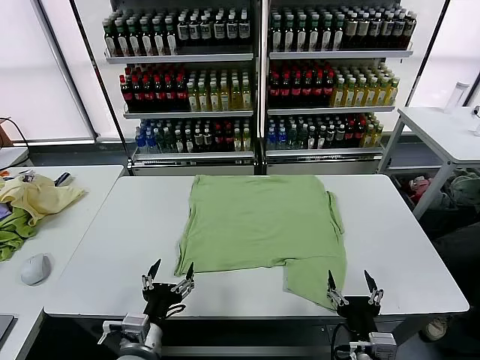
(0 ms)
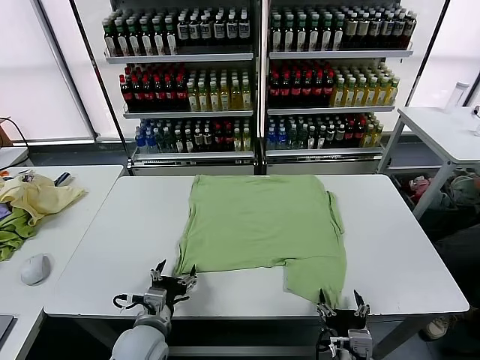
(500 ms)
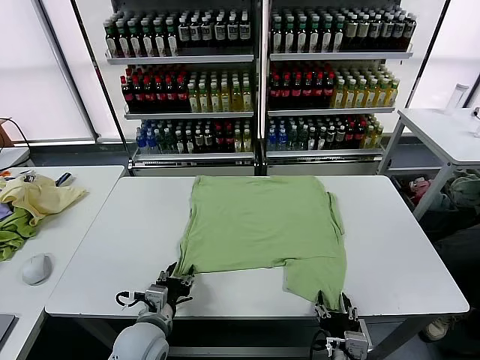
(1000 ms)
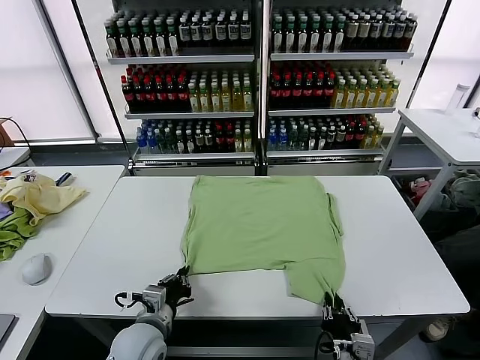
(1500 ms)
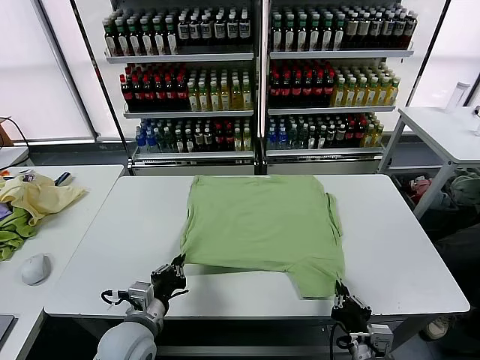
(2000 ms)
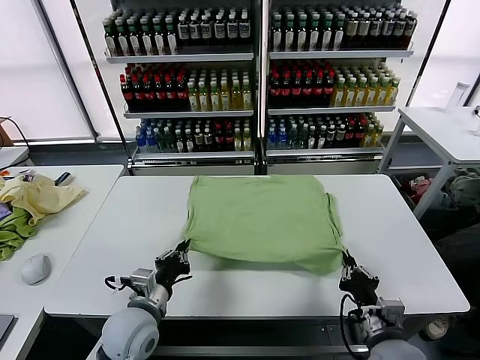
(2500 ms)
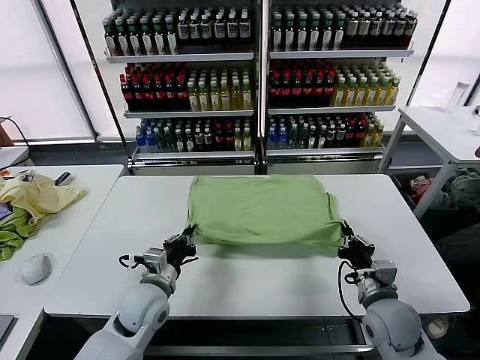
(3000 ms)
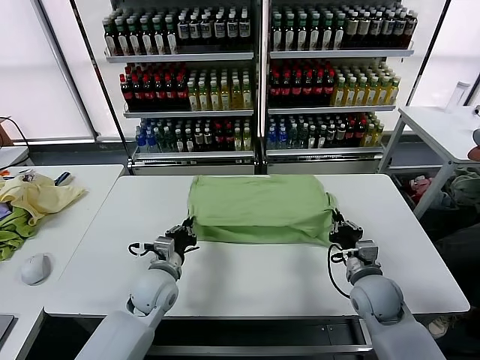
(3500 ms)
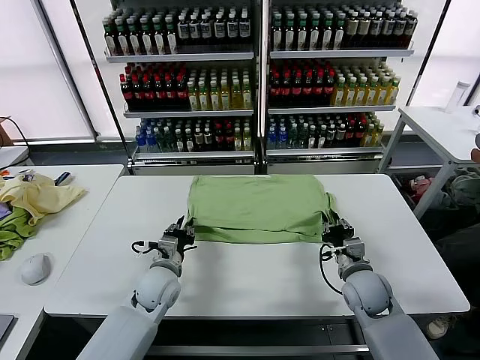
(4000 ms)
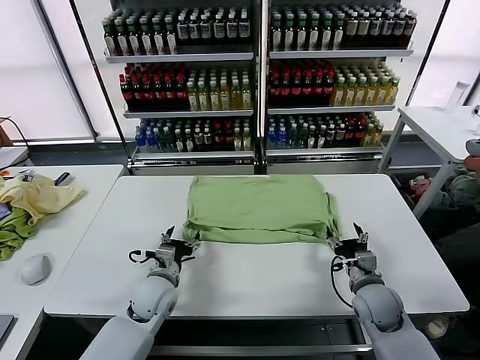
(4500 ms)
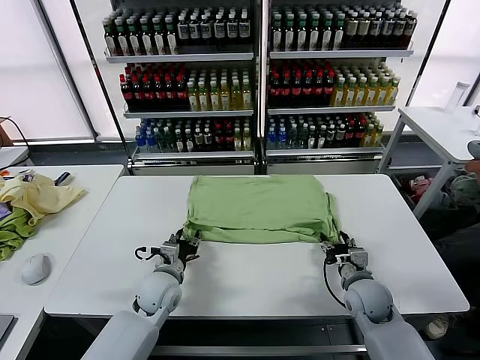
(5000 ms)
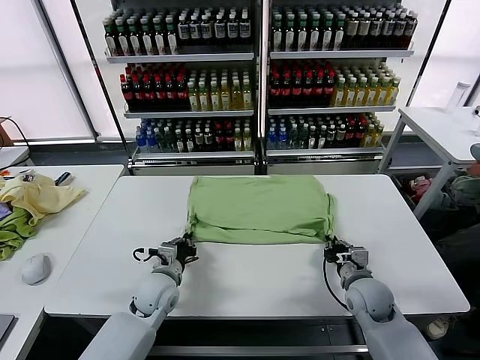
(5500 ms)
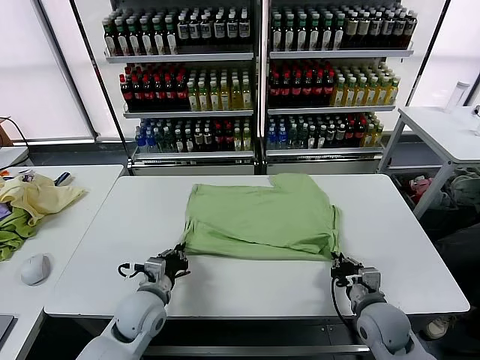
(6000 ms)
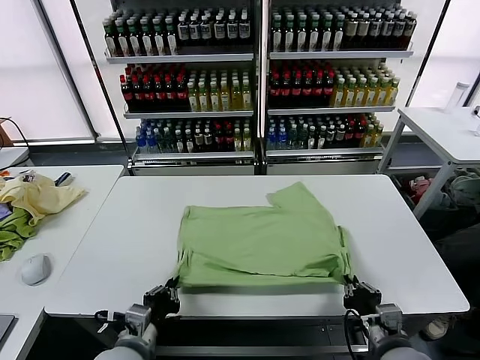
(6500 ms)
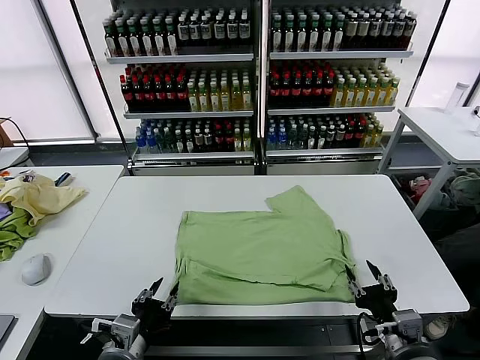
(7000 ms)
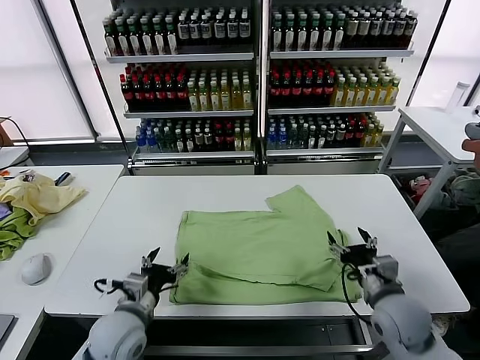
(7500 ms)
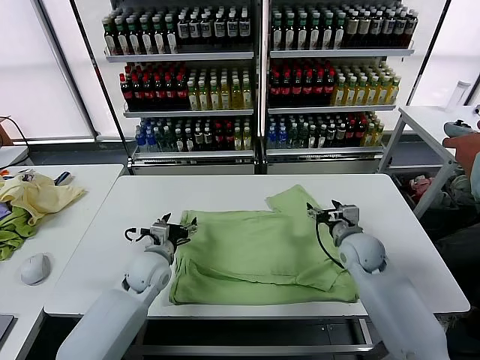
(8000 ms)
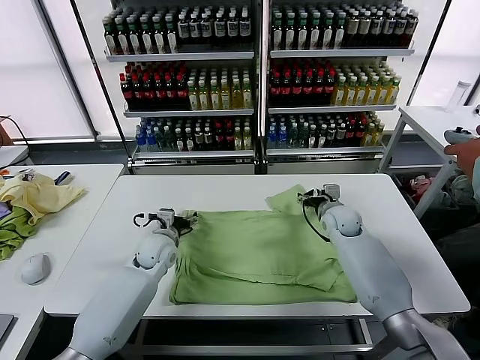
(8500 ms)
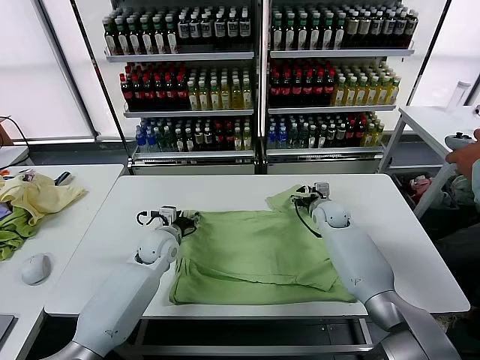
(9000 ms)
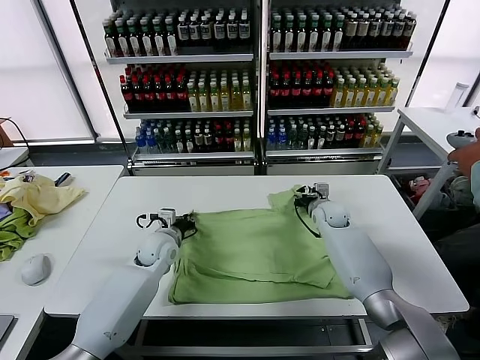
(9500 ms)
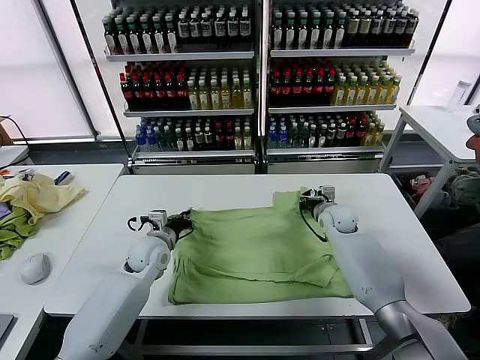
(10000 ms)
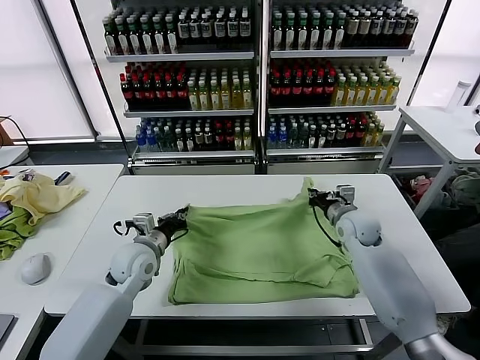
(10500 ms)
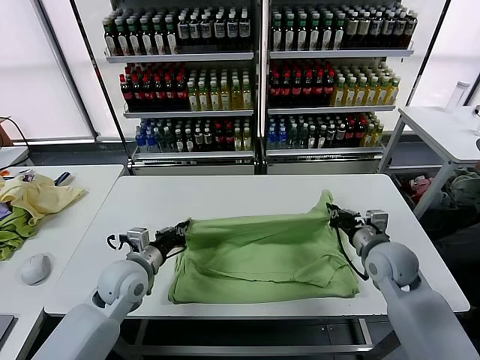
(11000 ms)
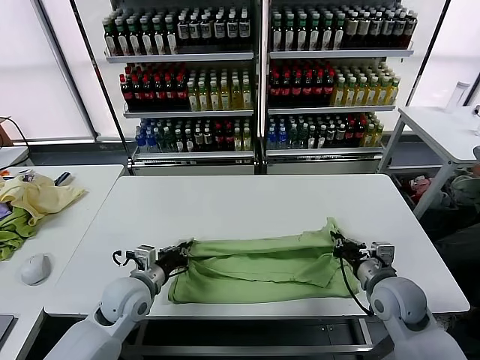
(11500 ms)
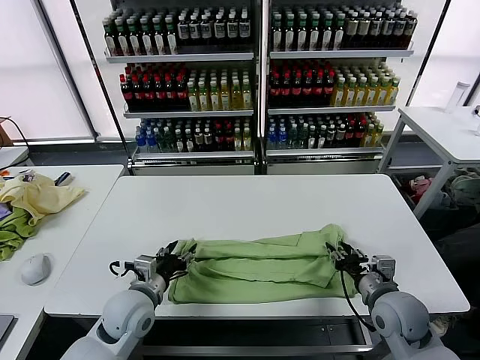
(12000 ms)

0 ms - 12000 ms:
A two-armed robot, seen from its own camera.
Task of the whole recording: fold and organize the clothes.
Step, 0 ms - 1500 ms: use both grippers simultaneously to clamp the lower edge of the clothing fabric.
Step, 2000 ms - 4000 ms: use both grippers to drag the lower edge of the fabric forward and fold it over the upper edge.
Step, 4500 ms - 6500 ms: Drag the clothes downward with both gripper.
Step, 7000 ms - 9500 ms: use both grippers simultaneously to clamp the upper edge of the clothing fabric.
Step, 10000 ms - 12000 ms: use both grippers to drag the upper edge of the fabric backward and fold it over the lower edge.
2000 ms - 4000 ms: The grippers both shift forward by some 15 cm. The right gripper opens up, while the left gripper opens.
4000 ms - 6000 ms: The grippers both shift backward by some 10 cm. The right gripper closes; the left gripper closes.
6000 ms - 8000 ms: The right gripper goes approximately 20 cm forward, and opens up, while the left gripper goes roughly 10 cm forward, and opens its fingers.
8000 ms - 10000 ms: The right gripper shifts about 10 cm forward, and closes up; the left gripper closes.
10000 ms - 12000 ms: The left gripper travels backward by about 15 cm, and opens; the right gripper heads backward, covering approximately 25 cm, and opens.

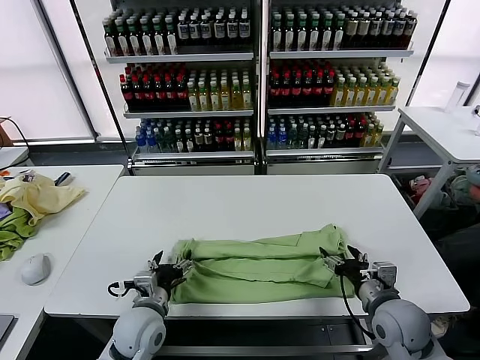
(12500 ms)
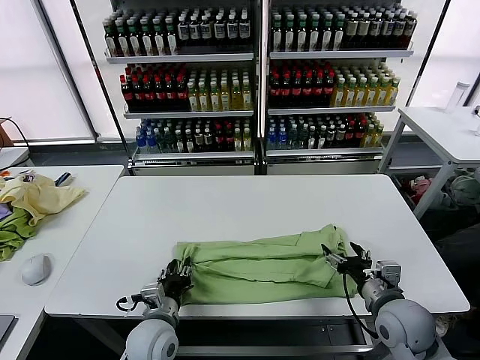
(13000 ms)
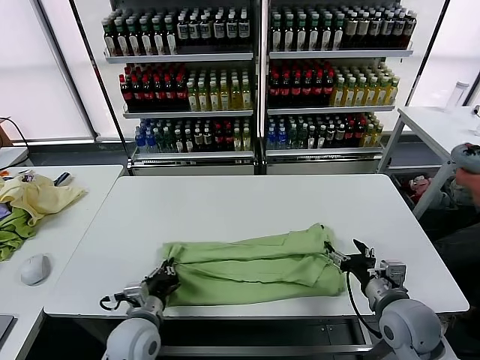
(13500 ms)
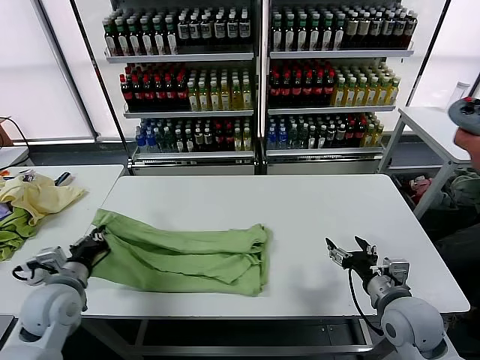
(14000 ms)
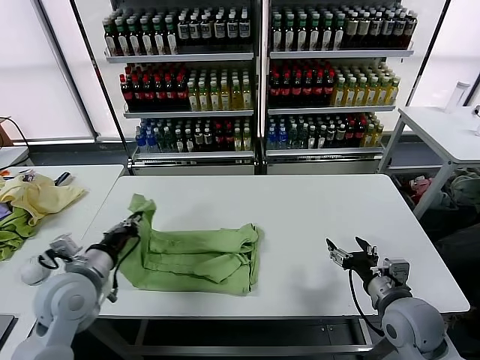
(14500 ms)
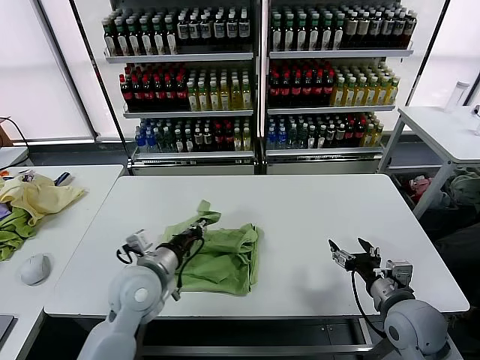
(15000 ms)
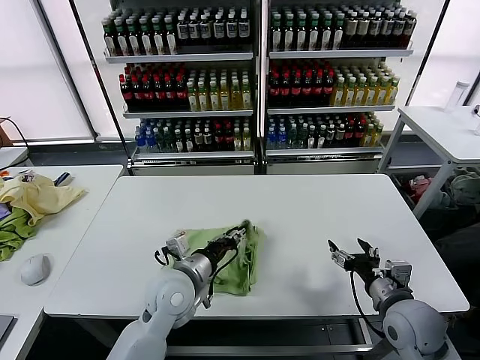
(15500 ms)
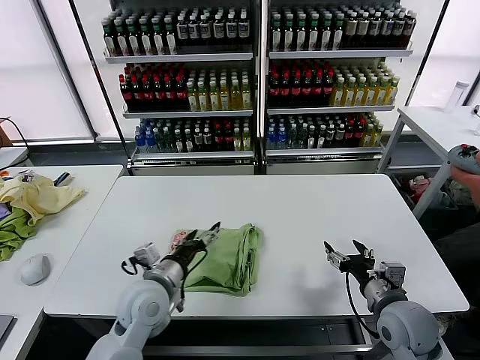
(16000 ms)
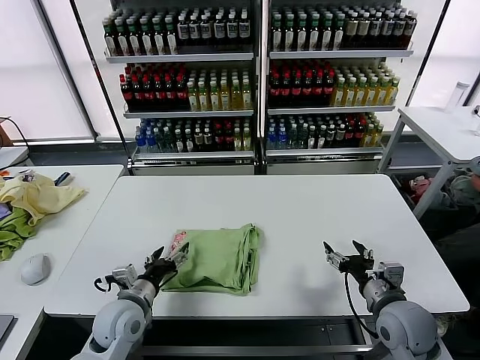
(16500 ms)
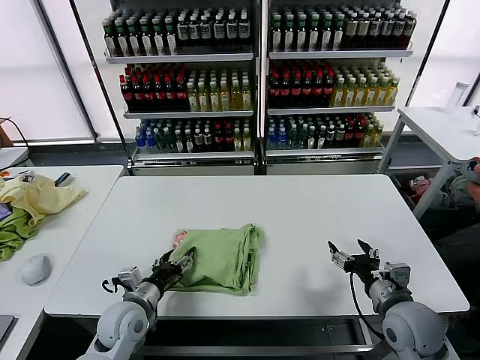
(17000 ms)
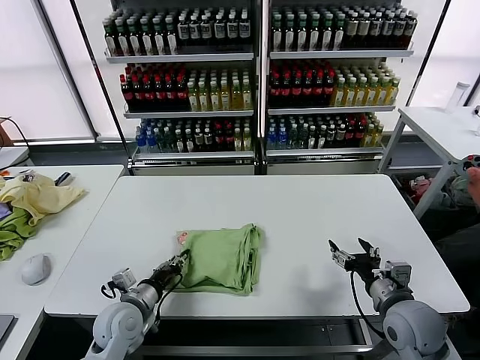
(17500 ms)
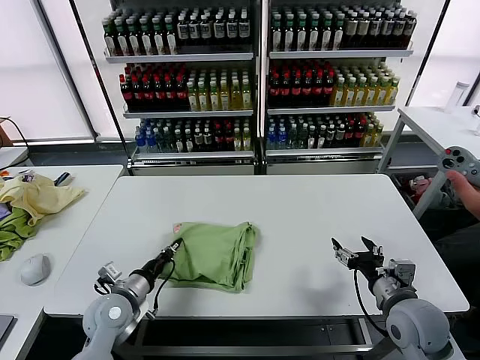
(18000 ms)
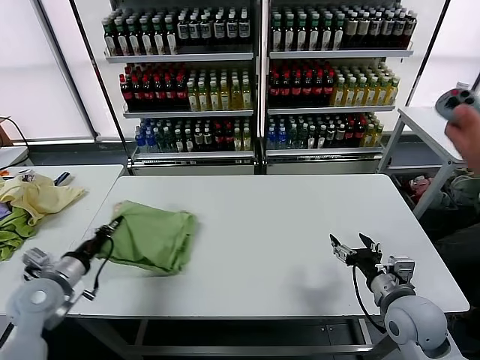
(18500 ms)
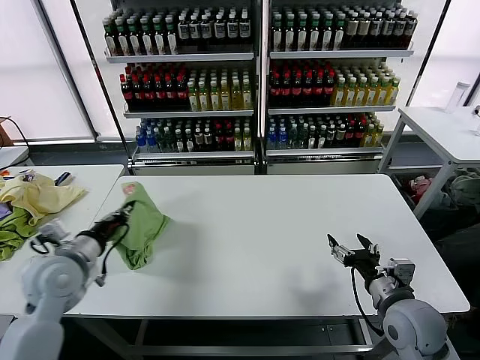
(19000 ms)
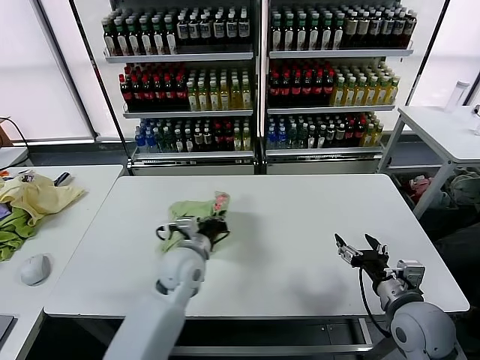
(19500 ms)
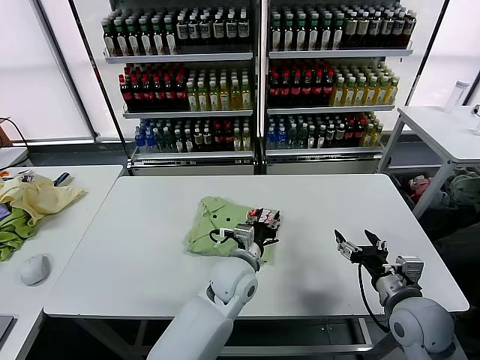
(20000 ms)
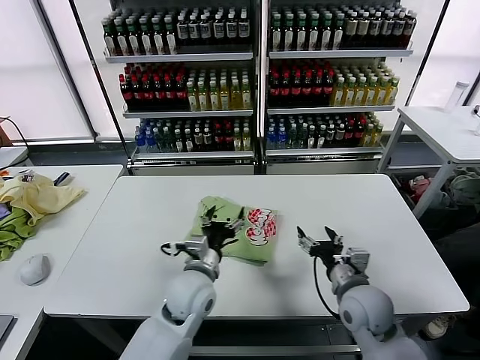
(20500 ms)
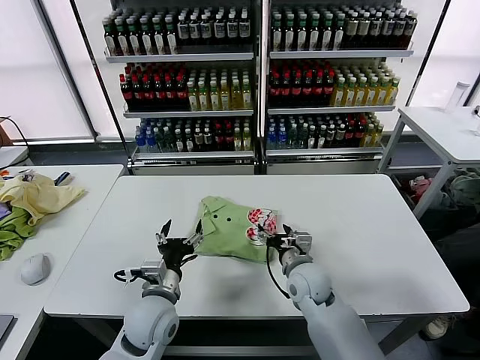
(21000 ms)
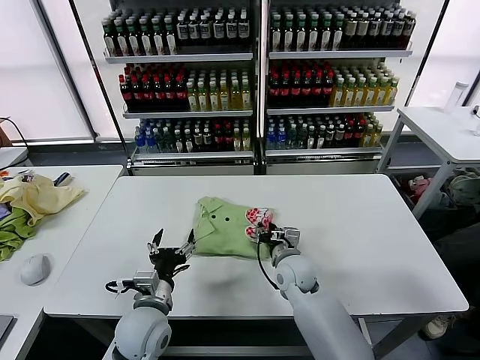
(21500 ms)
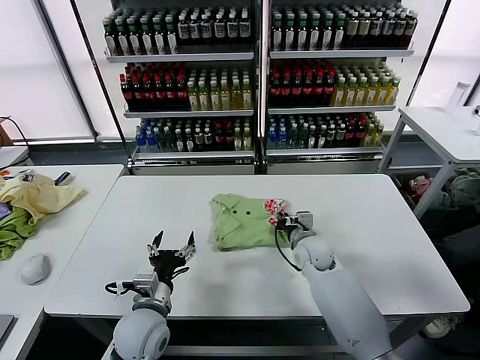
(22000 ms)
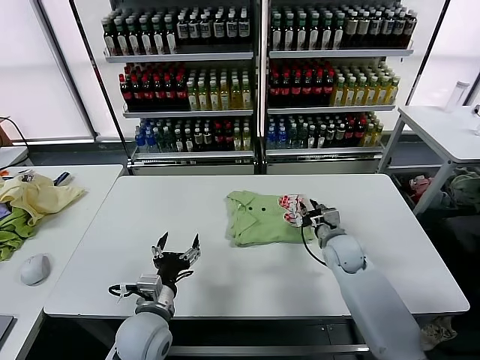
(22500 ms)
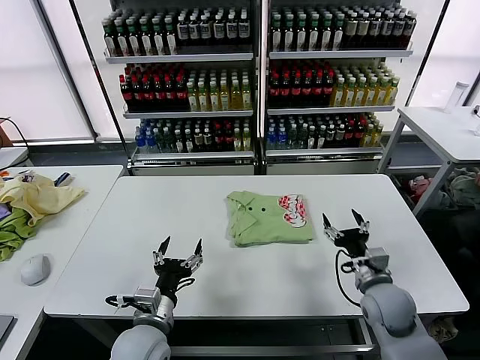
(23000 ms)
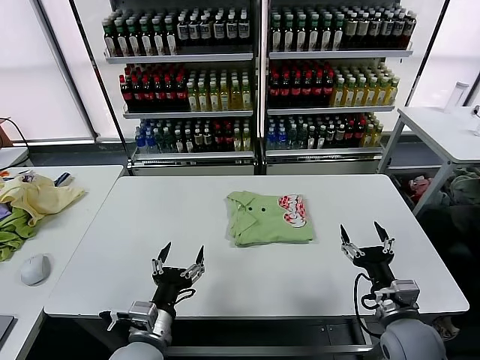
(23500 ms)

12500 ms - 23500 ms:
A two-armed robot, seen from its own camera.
Task of the whole recording: fold and organize the clothes.
Step, 13500 ms - 15500 ms: use the left gripper to drag the left edge of the fabric to the left and folds it over the right edge.
Step, 16000 ms - 19500 ms: Flip the folded clothes over with left gripper.
Step, 20000 ms - 22500 ms: Drag the clothes to the center of the table.
12500 ms - 14500 ms: The left gripper heads upward and to the left, covering roughly 15 cm, and closes up.
14500 ms - 16000 ms: The left gripper travels to the right and downward by about 15 cm, and opens up.
16000 ms - 18000 ms: The left gripper moves to the left and downward, roughly 10 cm, and closes its fingers.
18000 ms - 20000 ms: The left gripper moves to the right, roughly 25 cm, and opens up.
20000 ms - 21500 ms: The right gripper moves to the left, forward and downward, approximately 25 cm, and closes up, while the left gripper shifts approximately 20 cm to the left and backward, and opens.
21500 ms - 23500 ms: The left gripper shifts roughly 5 cm backward; the right gripper moves to the right and backward, about 25 cm, and opens.
